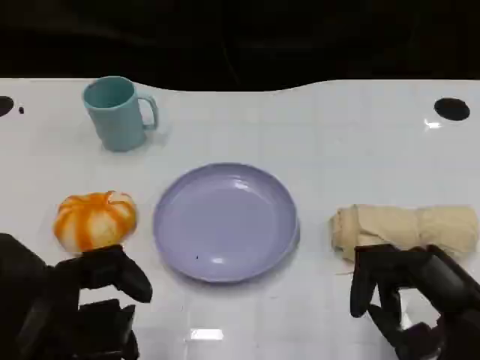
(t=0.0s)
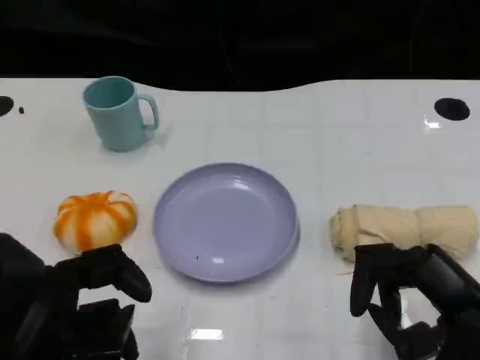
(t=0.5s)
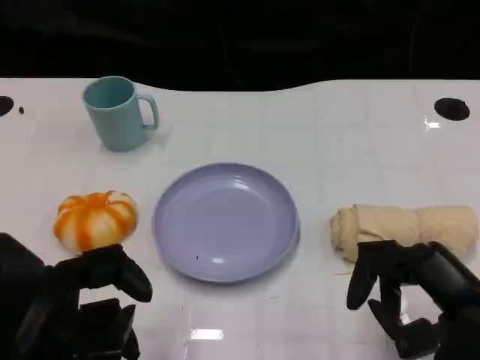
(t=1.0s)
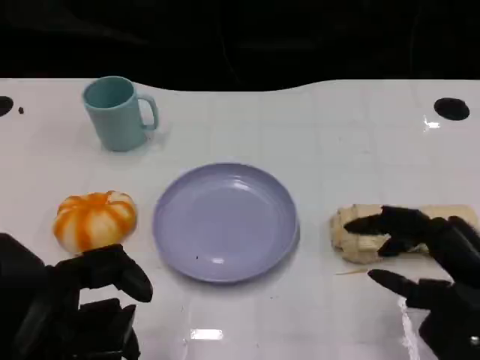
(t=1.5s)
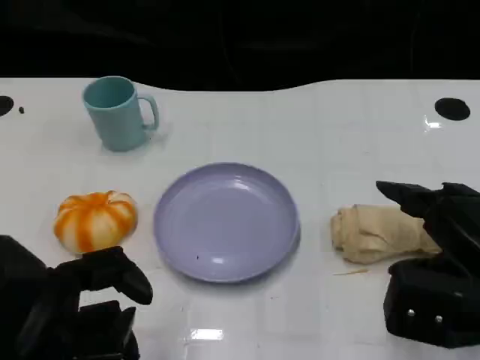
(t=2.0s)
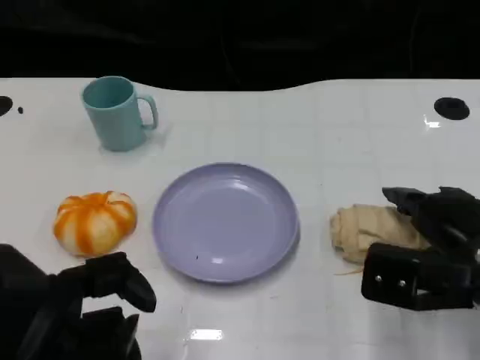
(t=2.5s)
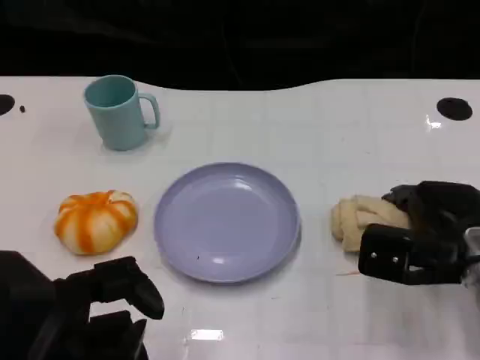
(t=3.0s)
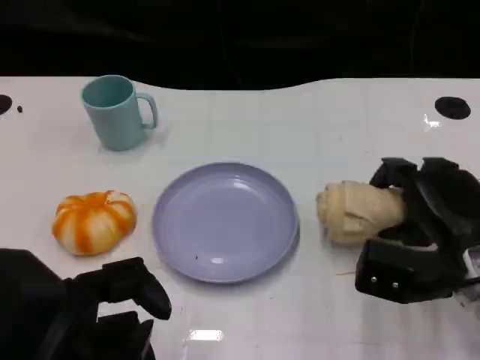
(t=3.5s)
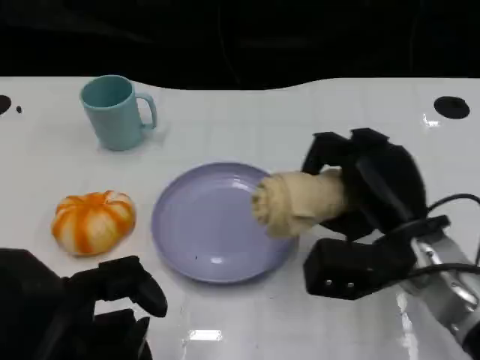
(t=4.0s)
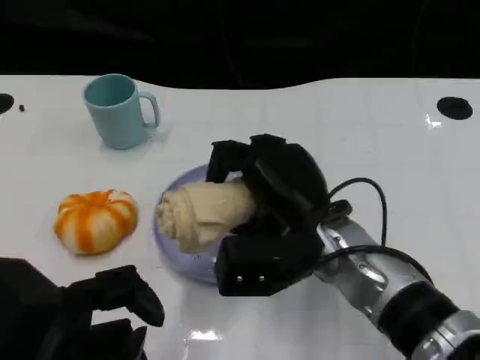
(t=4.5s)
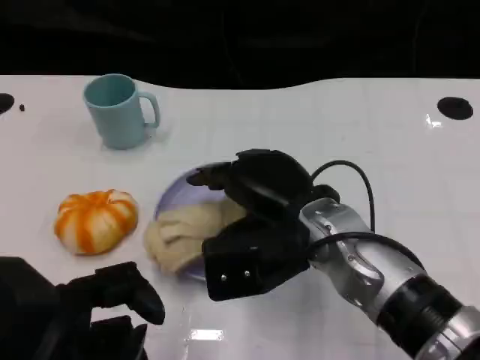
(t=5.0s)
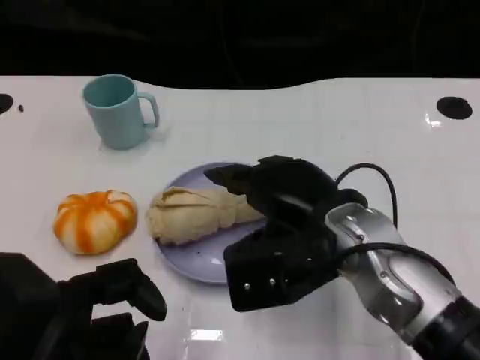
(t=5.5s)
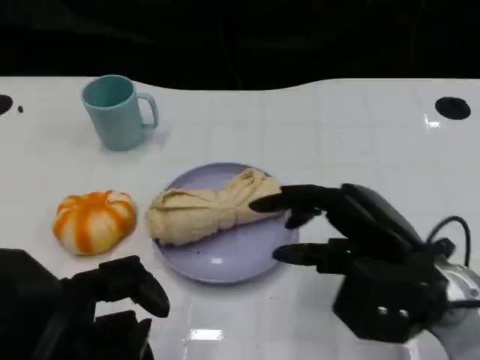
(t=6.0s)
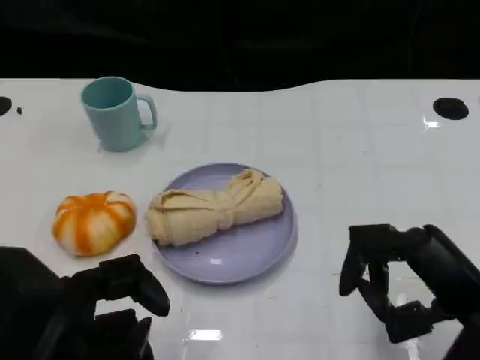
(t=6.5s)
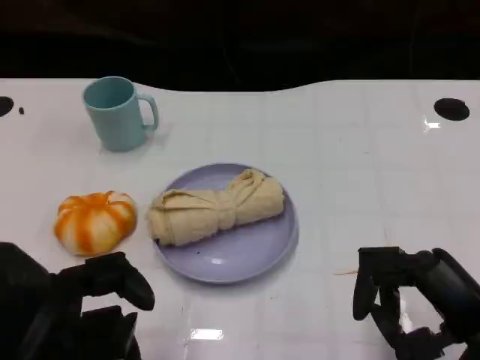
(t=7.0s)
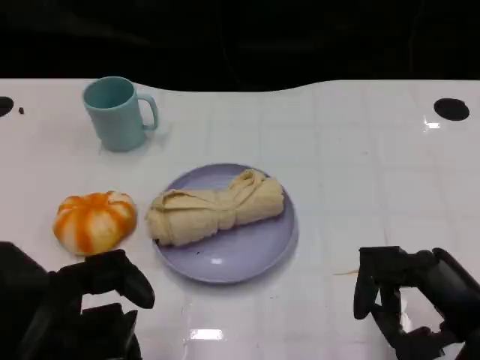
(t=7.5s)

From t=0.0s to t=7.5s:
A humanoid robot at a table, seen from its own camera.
Task of the whole recording: Grasp the towel on the left side of the plate with the left hand and place it into the plate.
From t=2.0s to t=4.0s: The right hand shifts some 10 cm to the left and forward.
From t=4.0s to t=5.5s: The right hand changes place by some 5 cm.
From t=5.5s to t=7.5s: The right hand shifts about 15 cm to the right and backward.

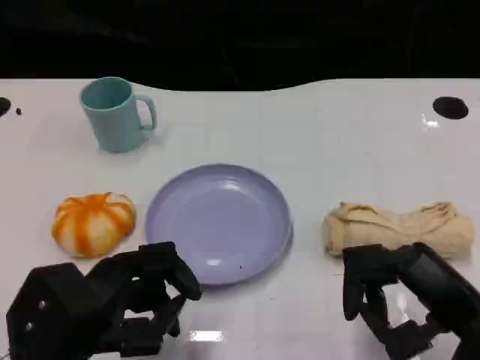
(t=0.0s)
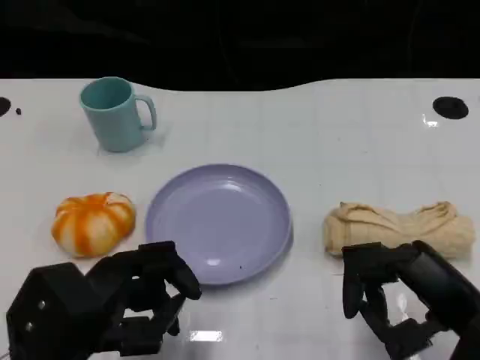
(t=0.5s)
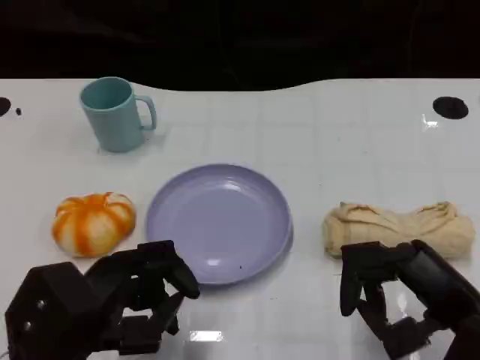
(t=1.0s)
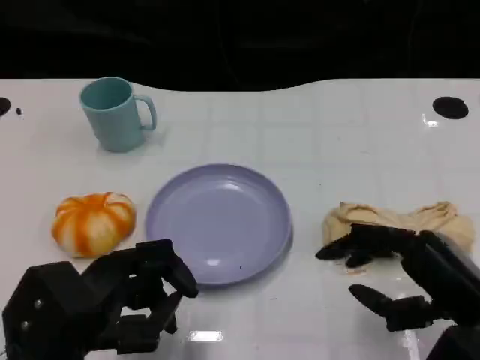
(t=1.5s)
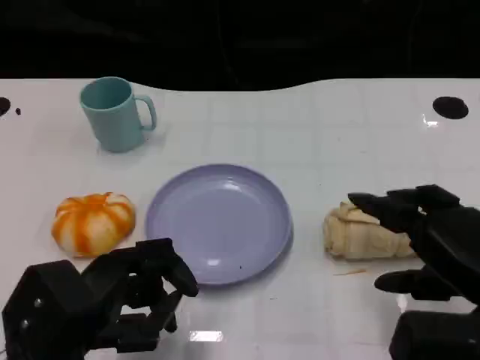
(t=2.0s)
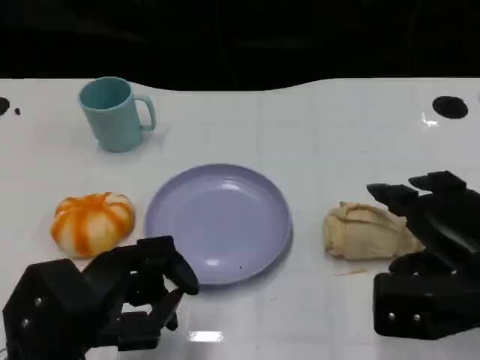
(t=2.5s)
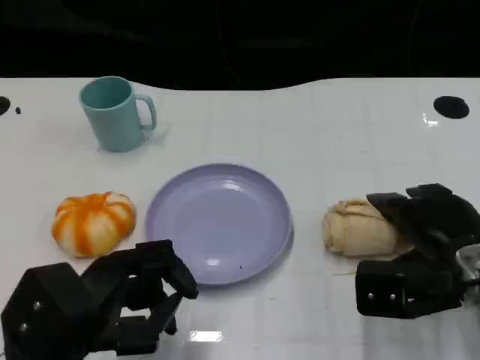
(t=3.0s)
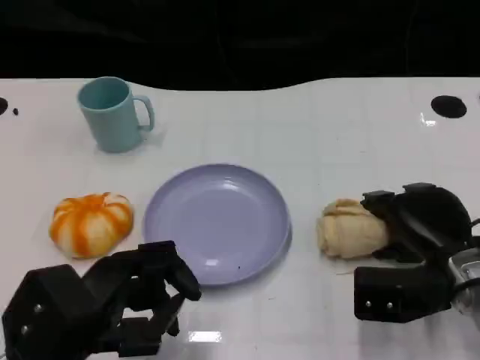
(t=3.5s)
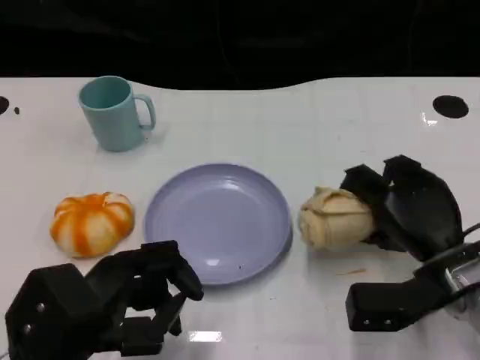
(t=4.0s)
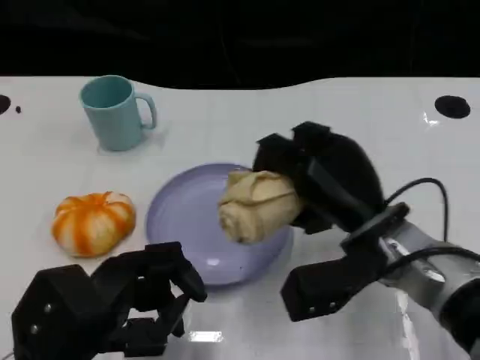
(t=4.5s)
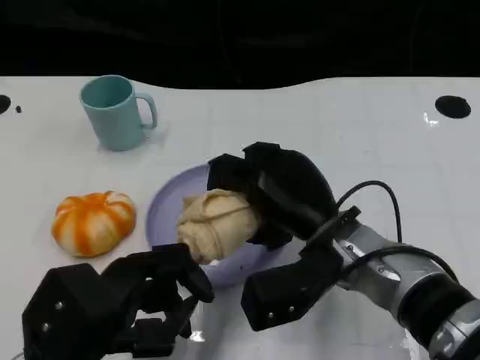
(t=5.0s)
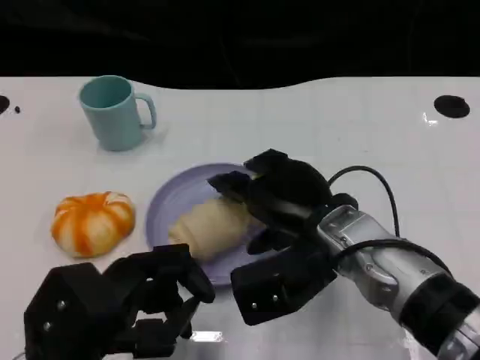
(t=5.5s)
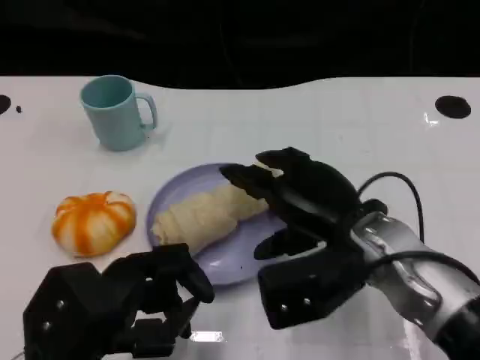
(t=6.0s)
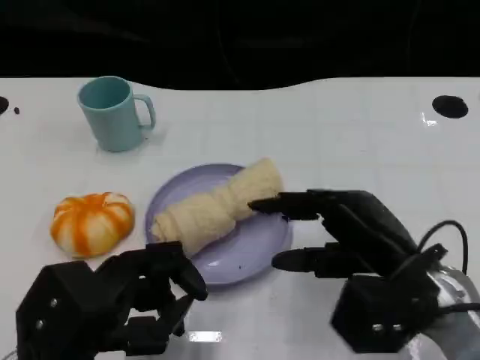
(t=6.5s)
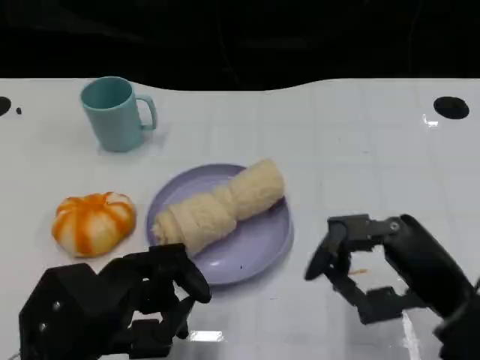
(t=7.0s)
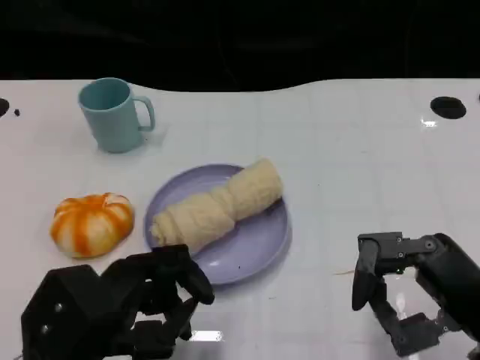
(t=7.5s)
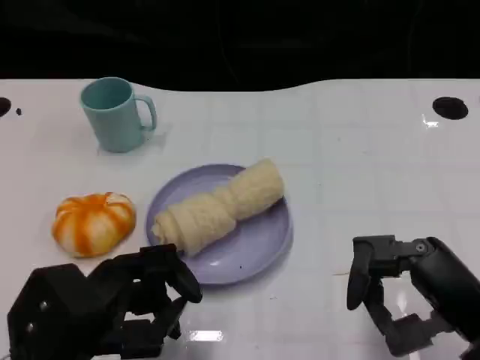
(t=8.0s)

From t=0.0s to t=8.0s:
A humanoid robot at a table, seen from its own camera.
Task of the whole recording: Grasp the towel on the left side of the plate with the left hand and place it into the plate.
From t=2.0s to t=4.0s: The right hand heads forward and downward, covering about 10 cm.
From t=4.0s to t=6.0s: The right hand goes approximately 10 cm to the left and upward.
From t=6.0s to t=8.0s: The right hand shifts about 15 cm to the right and backward.

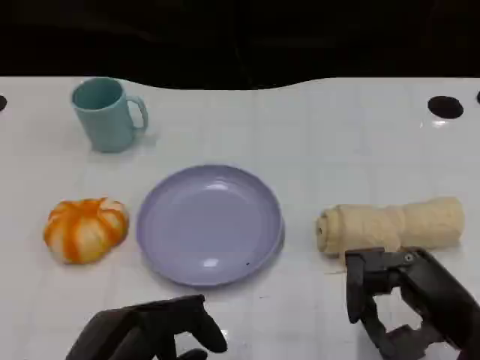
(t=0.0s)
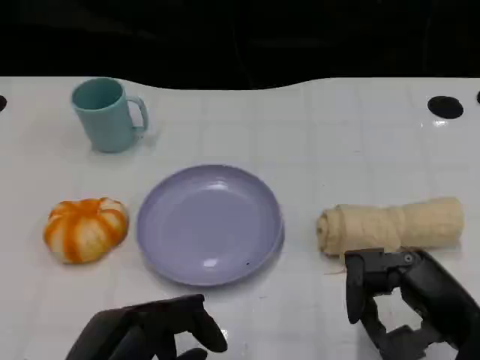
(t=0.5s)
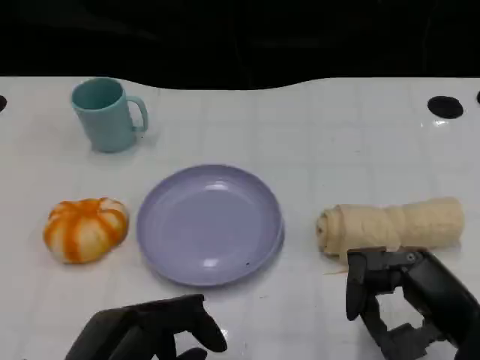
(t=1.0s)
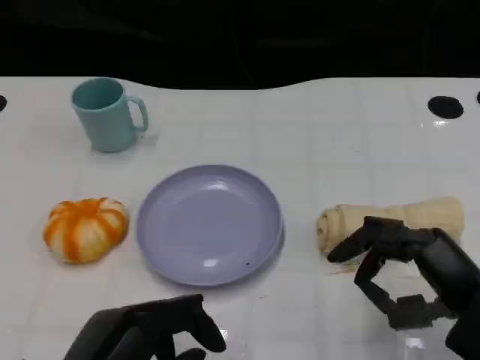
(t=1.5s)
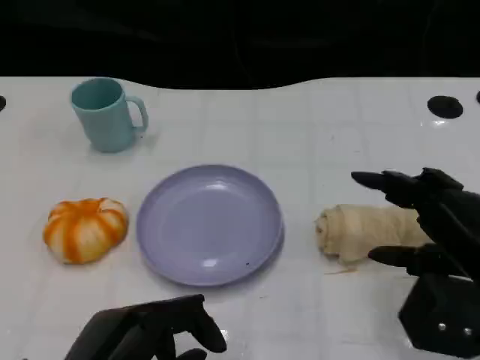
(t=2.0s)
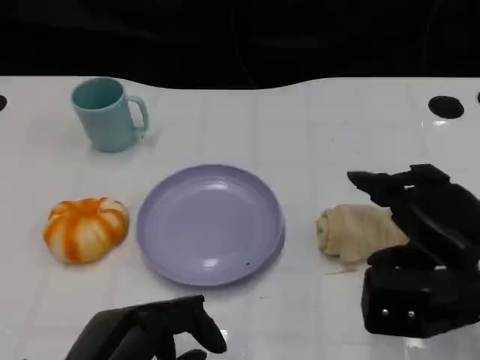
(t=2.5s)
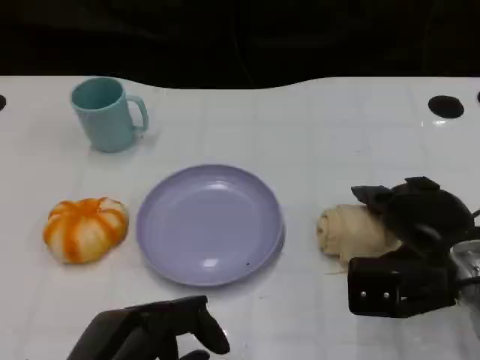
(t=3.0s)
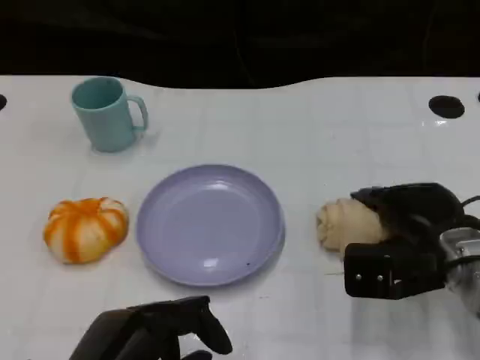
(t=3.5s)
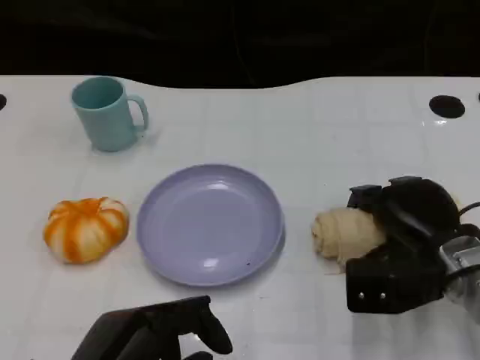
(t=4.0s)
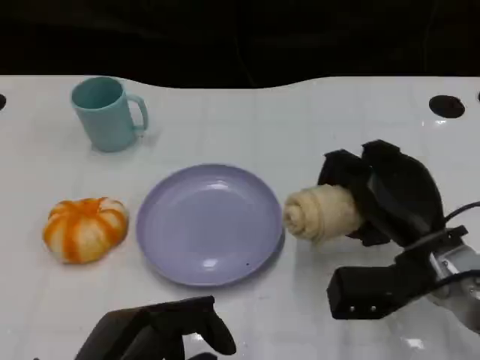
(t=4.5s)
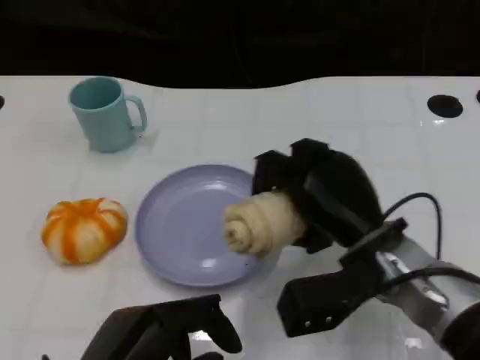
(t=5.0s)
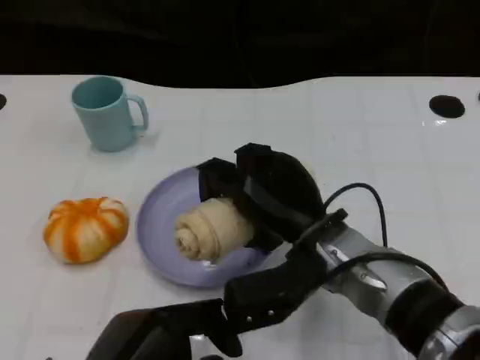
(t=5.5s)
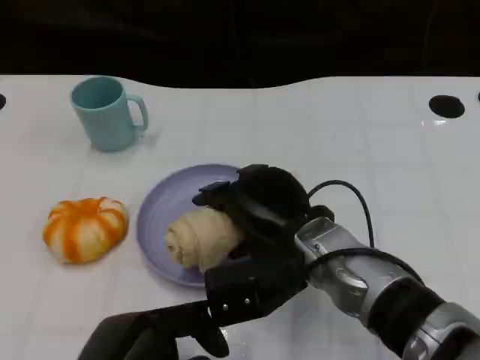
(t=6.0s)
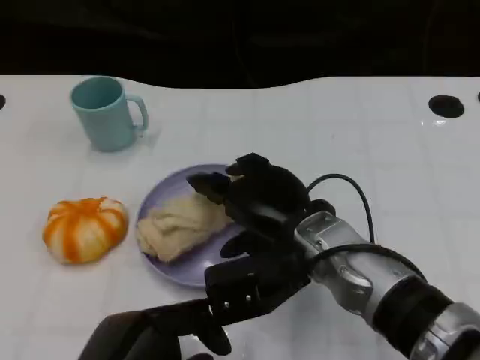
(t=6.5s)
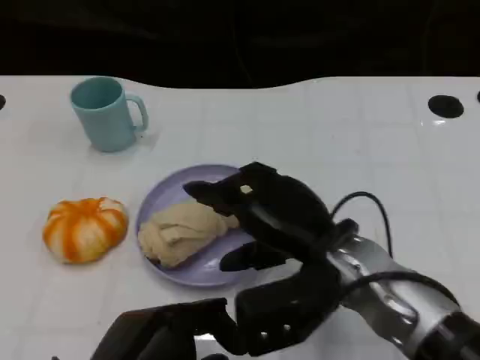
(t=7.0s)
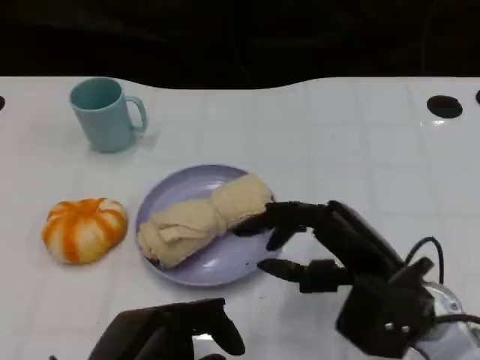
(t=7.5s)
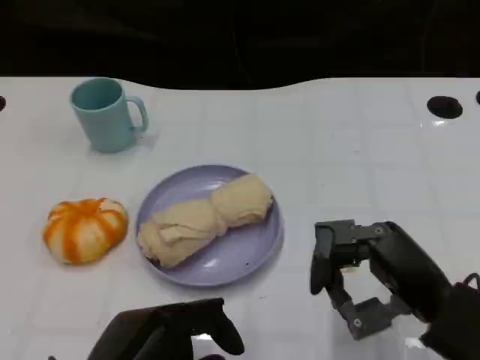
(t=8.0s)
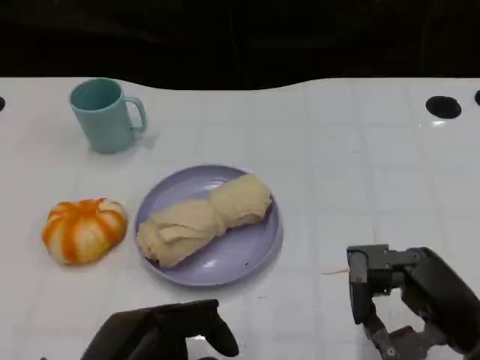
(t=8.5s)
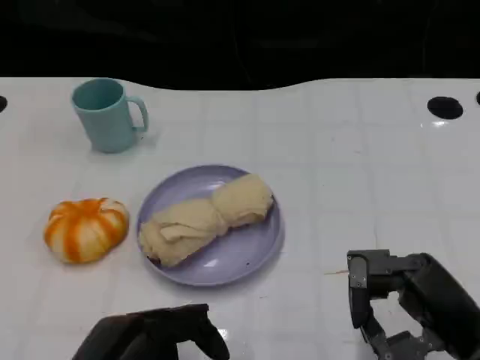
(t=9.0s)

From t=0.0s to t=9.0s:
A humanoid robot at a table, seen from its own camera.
Task of the whole recording: Grasp the towel on the left side of the plate with the left hand and place it into the plate.
From t=0.0s to t=2.0s: The right hand shifts by some 5 cm.
From t=2.0s to t=4.5s: The right hand travels forward, to the left and downward by about 10 cm.
From t=4.5s to t=7.0s: The right hand heads to the left, covering approximately 10 cm.
From t=7.0s to t=9.0s: The right hand shifts some 15 cm to the right and backward.
